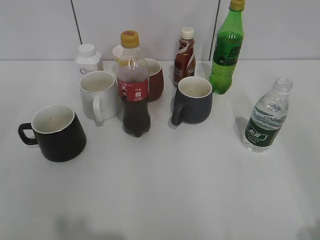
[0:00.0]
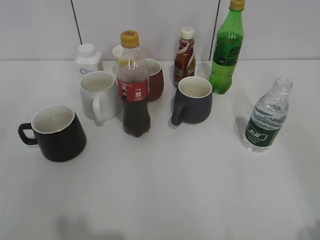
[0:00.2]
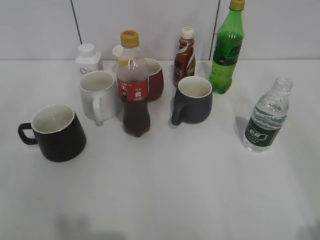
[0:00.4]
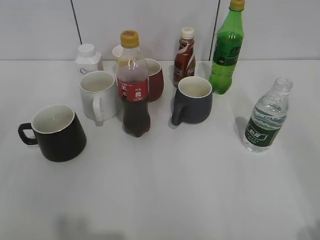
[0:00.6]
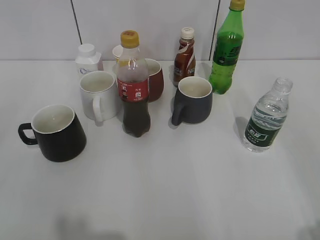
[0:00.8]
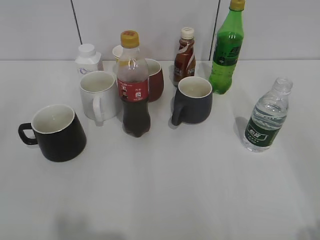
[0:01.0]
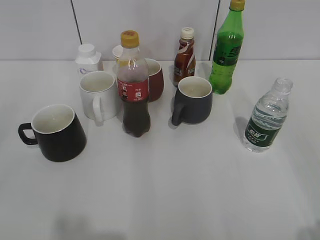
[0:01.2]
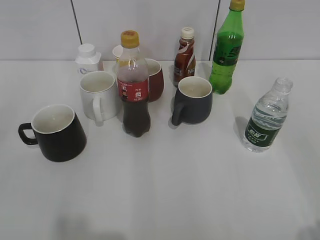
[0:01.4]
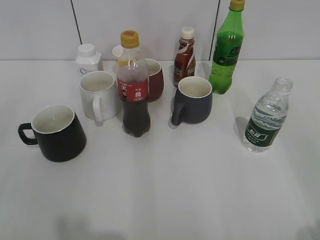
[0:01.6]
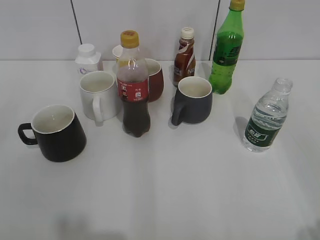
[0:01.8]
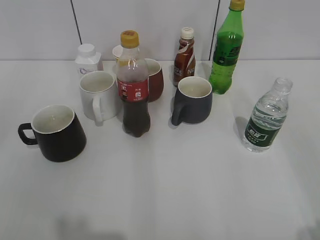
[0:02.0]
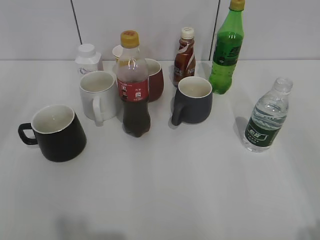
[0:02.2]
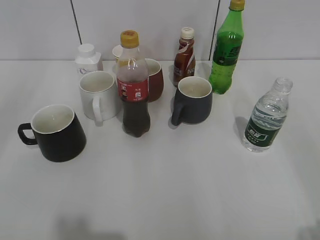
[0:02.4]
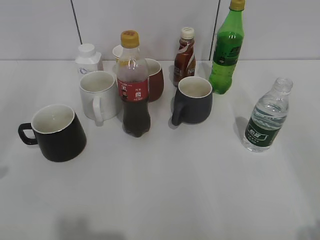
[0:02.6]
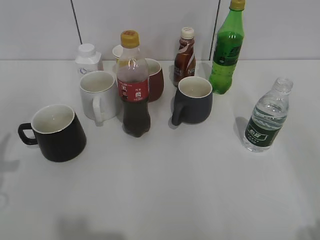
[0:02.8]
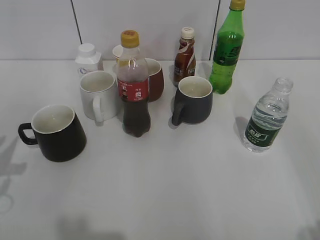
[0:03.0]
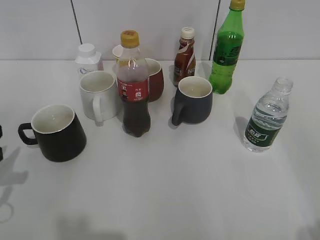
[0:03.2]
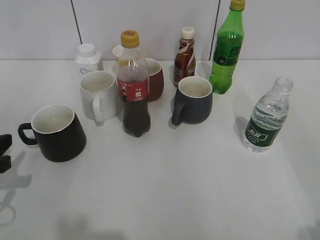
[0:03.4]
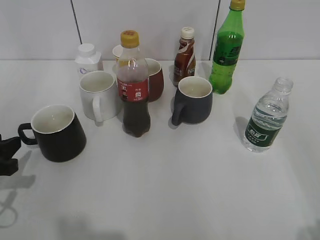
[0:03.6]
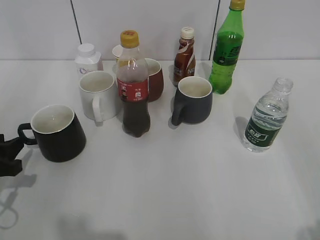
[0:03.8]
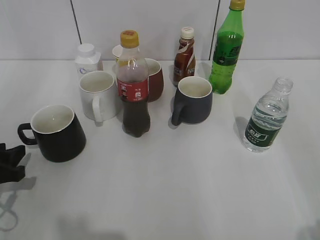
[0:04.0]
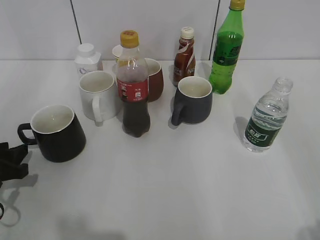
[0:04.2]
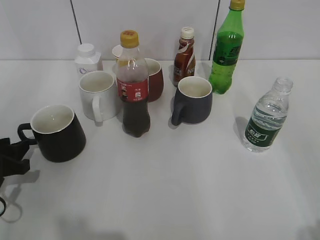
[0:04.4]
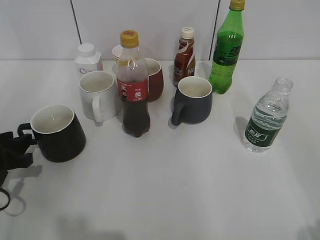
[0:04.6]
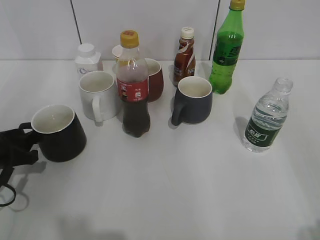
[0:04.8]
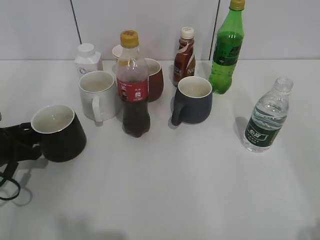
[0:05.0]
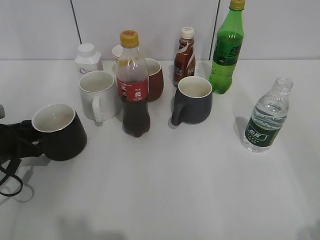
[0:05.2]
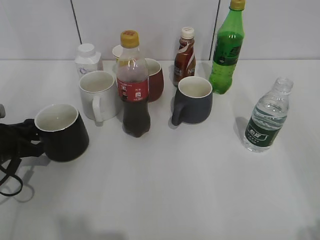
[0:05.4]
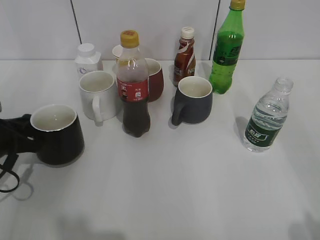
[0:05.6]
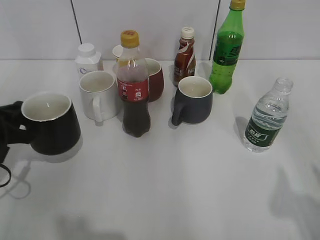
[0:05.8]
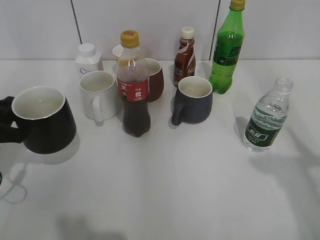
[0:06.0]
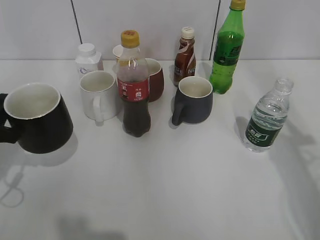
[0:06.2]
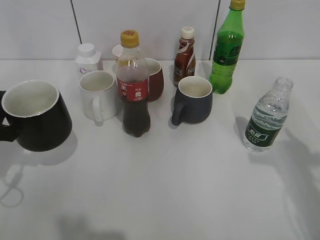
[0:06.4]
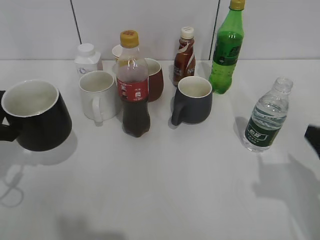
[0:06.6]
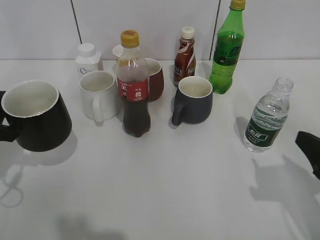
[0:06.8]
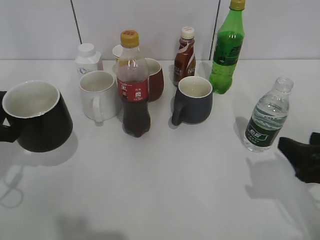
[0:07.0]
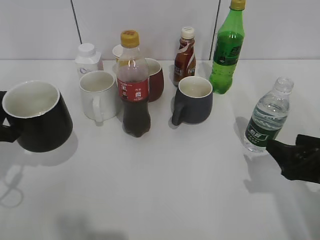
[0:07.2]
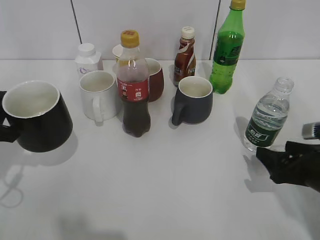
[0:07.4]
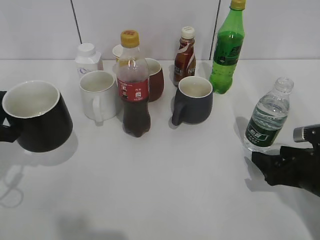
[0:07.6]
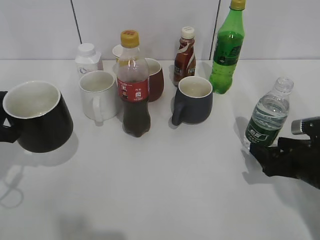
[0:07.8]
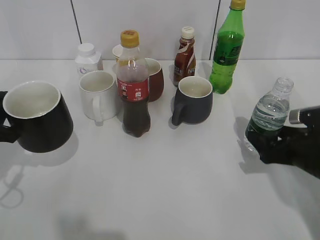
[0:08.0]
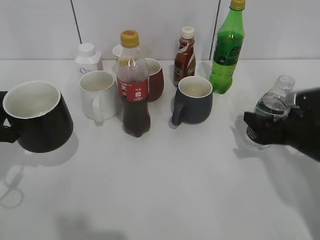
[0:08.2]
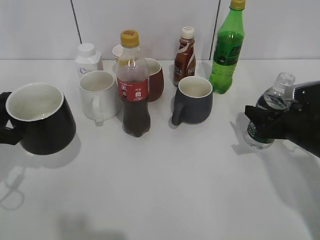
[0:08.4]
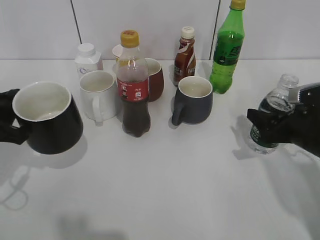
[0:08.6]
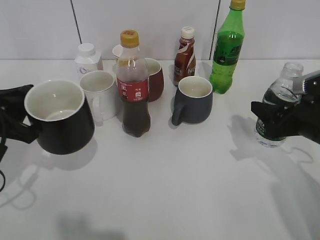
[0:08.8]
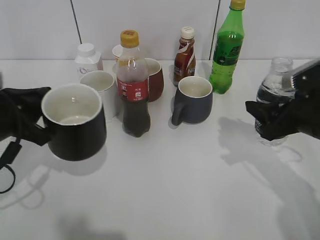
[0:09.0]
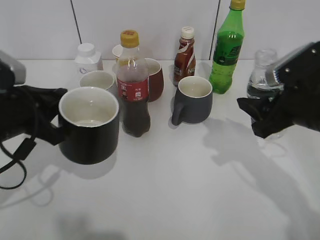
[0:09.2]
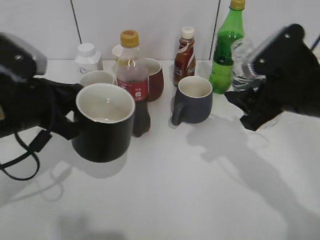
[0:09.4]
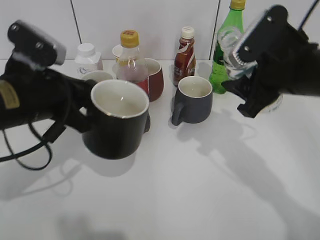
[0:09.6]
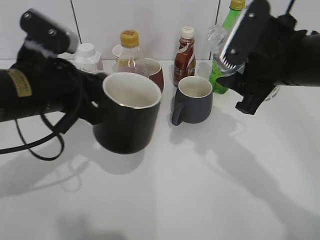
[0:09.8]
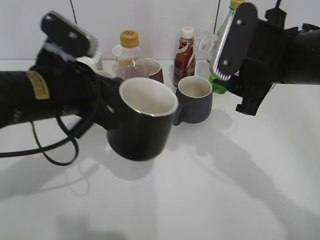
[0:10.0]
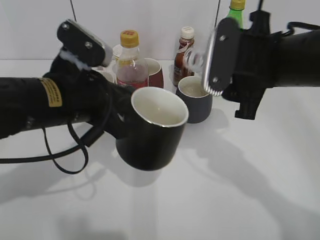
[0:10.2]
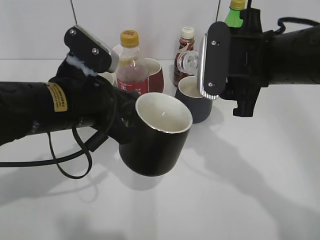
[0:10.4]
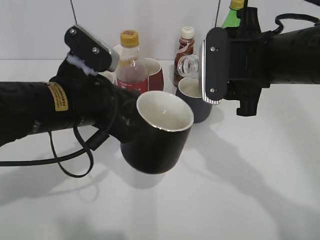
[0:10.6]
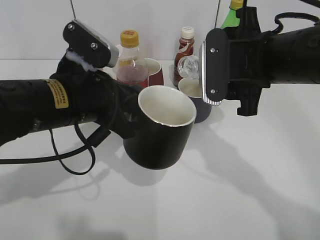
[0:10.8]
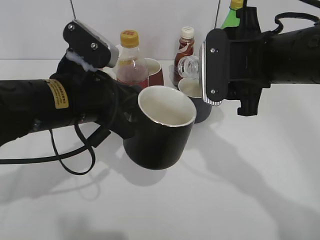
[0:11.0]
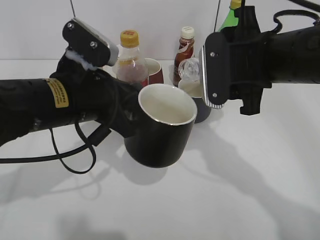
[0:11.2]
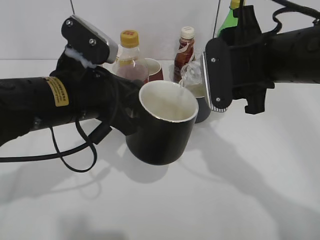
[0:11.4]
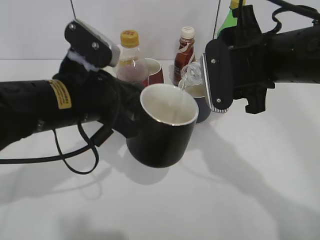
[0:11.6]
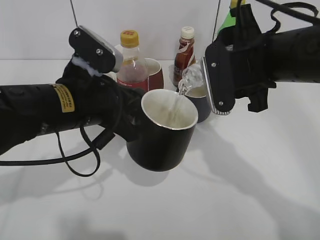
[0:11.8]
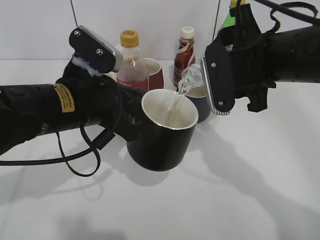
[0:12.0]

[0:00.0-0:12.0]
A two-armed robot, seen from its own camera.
Step, 2.0 to 5.2 s: Grasp the black cup with left gripper.
Step, 5.6 to 6.4 s: Lift the black cup with left gripper.
Step, 6.6 to 8.4 s: Grasp the bottle with water with right gripper.
3.0 to 4.4 s: The left gripper heads downward, covering roughly 10 cm.
4.4 to 6.0 s: The left gripper shifts some 5 cm upward, and closes; the right gripper goes approximately 15 cm forward and upward.
6.0 to 7.6 s: The right gripper travels downward by some 30 cm, and opens its fingers.
7.6 to 9.0 s: The right gripper heads upward, covering some 10 cm, and closes its fingers, while the left gripper moves approximately 5 cm.
9.0 to 10.4 s: The left gripper shifts approximately 10 cm to the right. Meanwhile the right gripper moves to the left and upward, roughly 15 cm.

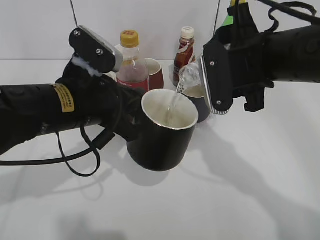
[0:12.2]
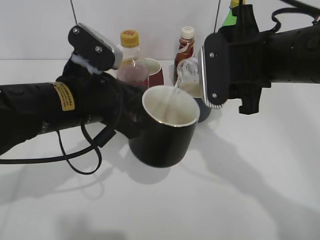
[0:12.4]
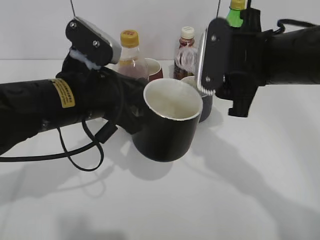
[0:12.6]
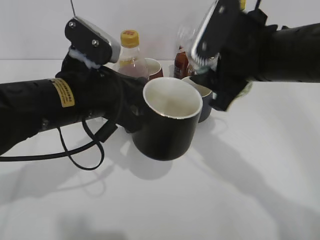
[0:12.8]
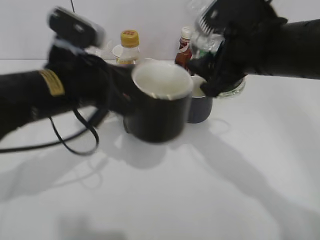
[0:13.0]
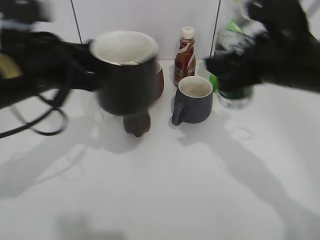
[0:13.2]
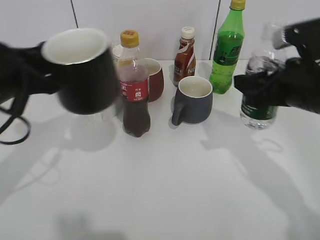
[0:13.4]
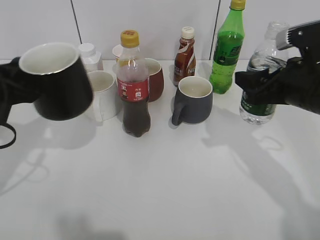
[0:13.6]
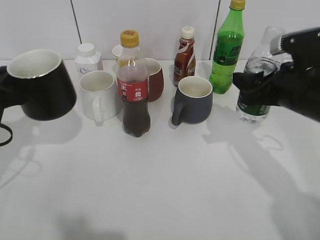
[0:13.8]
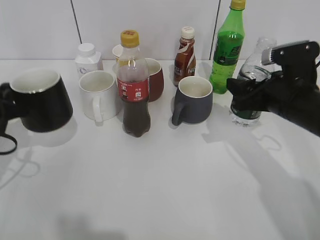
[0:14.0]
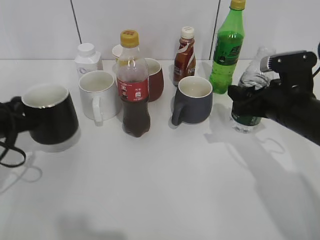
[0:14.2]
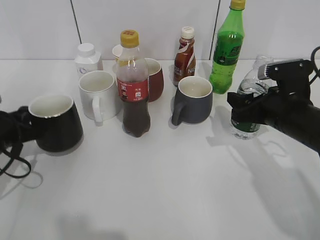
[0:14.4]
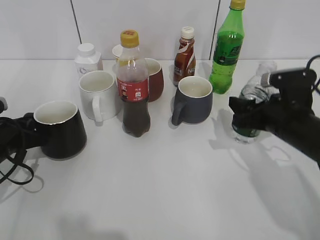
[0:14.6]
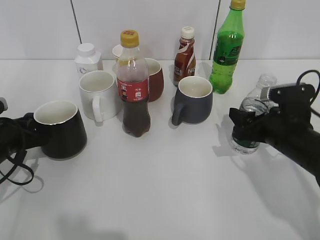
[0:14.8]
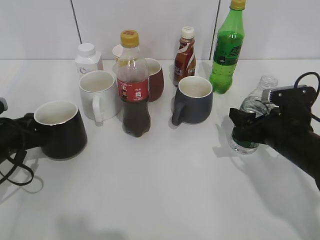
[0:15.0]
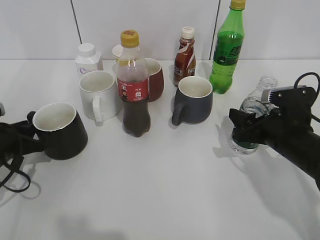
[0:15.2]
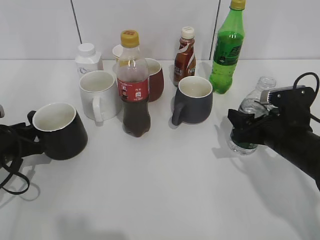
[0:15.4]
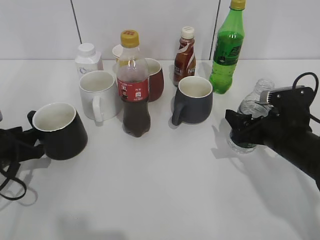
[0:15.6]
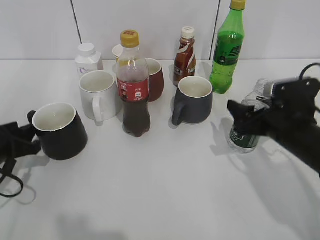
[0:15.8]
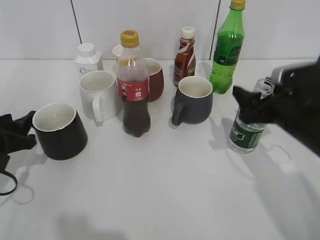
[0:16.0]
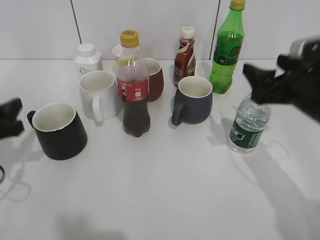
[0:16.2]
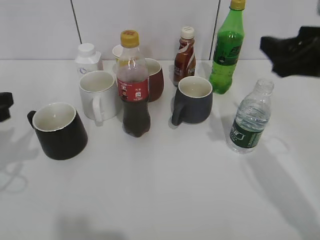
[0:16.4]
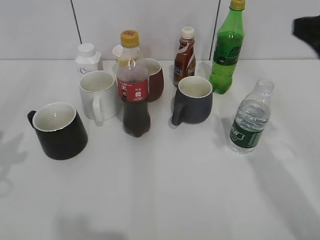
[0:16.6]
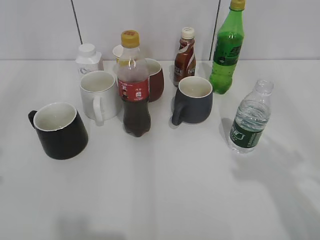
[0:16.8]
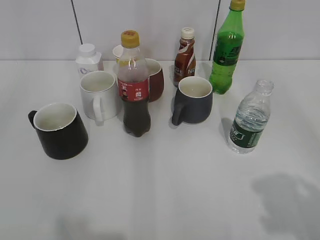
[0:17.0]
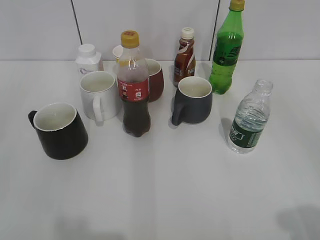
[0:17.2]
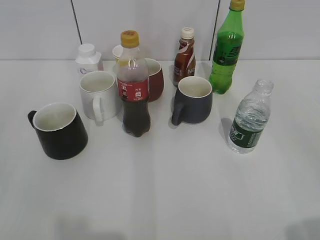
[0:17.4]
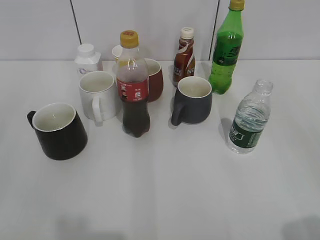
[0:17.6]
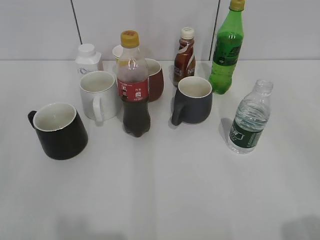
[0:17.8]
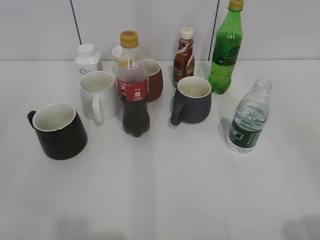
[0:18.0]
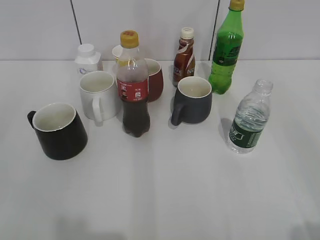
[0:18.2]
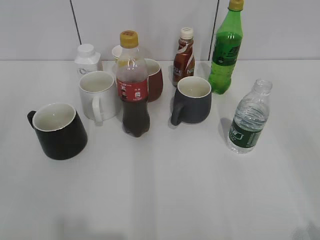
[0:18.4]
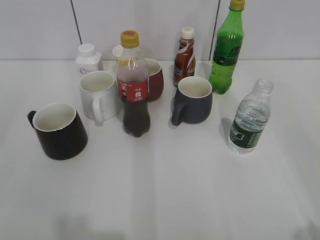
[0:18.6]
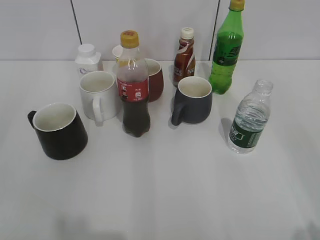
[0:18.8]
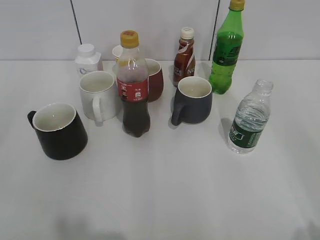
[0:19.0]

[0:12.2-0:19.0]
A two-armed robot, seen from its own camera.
Step, 13.0 to 15.8 s: Place the black cup on the table with left gripper.
12.2 to 13.6 s: The left gripper travels to the left by about 15 cm; the right gripper travels to the right by about 10 cm.
13.6 to 15.0 s: The two grippers go roughly 10 cm downward.
15.0 to 16.2 s: The right gripper moves upward, about 10 cm, and opens. Meanwhile the left gripper heads upward, covering roughly 5 cm, and opens up.
16.2 to 17.6 s: Both grippers move backward and upward, some 25 cm.

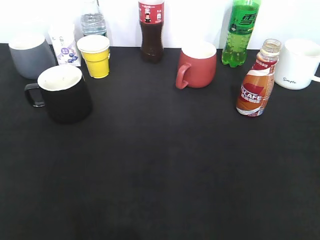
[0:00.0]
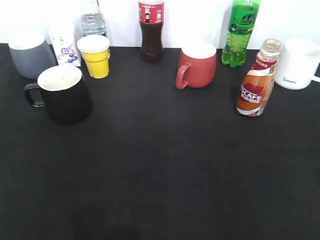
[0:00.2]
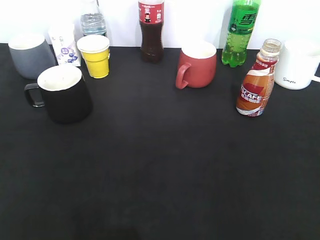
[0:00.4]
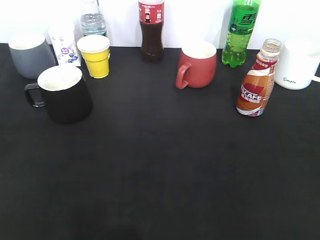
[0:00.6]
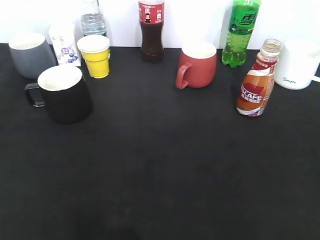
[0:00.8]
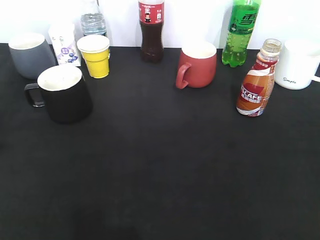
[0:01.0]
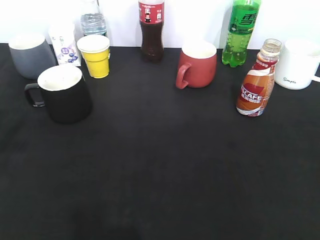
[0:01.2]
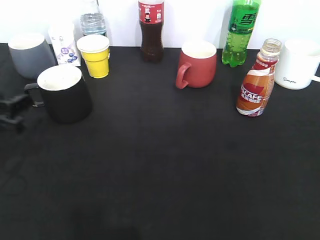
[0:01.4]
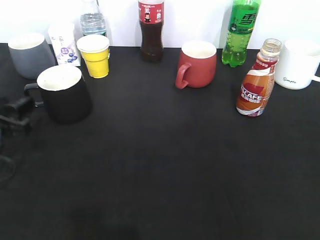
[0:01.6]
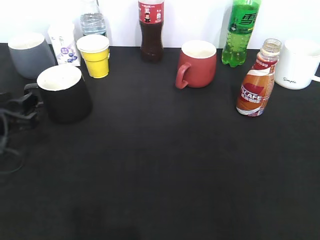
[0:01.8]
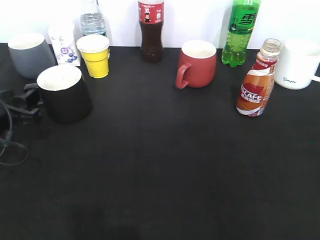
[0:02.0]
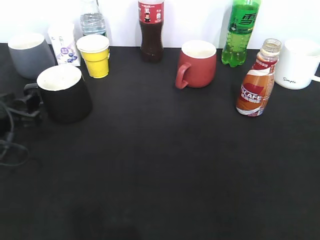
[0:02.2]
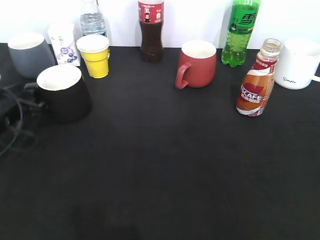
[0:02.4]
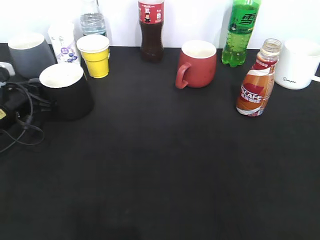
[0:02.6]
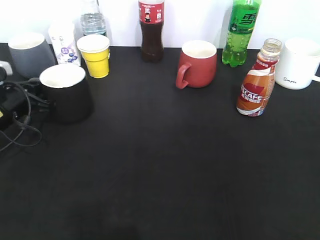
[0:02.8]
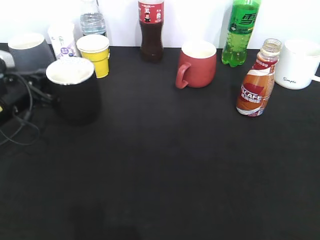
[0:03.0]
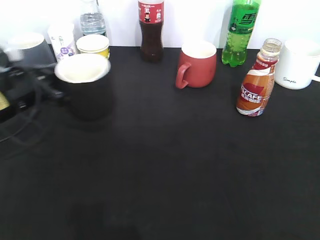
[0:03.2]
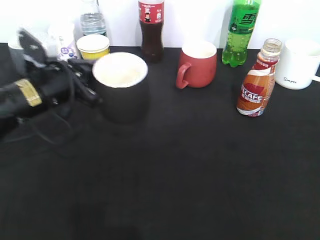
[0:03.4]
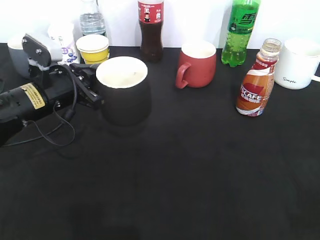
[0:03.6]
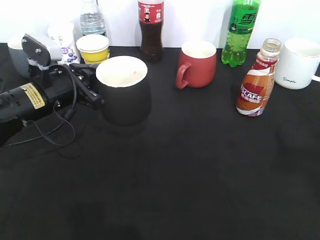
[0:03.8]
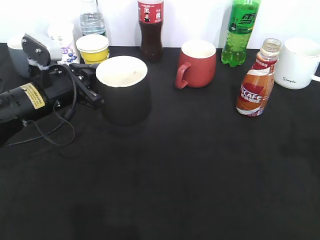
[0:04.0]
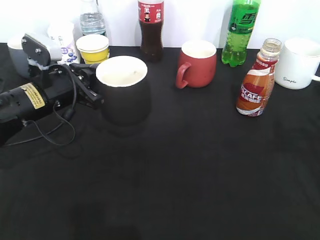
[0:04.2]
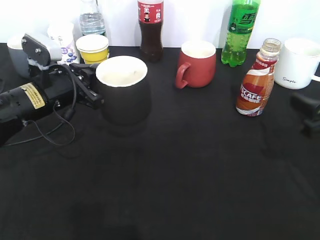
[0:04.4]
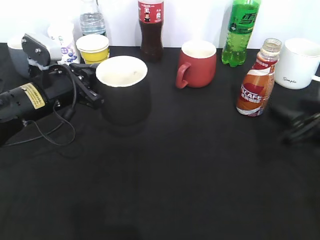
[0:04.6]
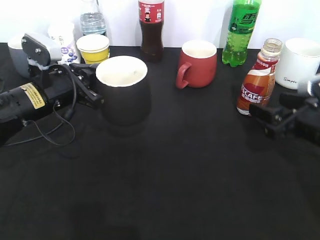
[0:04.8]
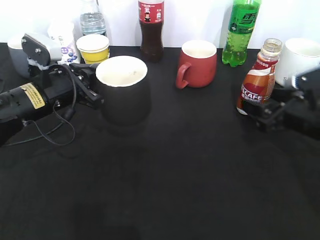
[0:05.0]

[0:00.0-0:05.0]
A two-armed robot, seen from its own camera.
Step, 0.6 to 2.8 s: Grasp the black cup with left gripper.
Step, 3.0 to 3.4 s: Lift the black cup with left gripper.
0.0 to 1.6 s: The left gripper is displaced forward and downward by about 30 cm, and opens its fingers.
1.6 to 3.4 s: The left gripper moves to the right and forward, roughly 15 cm, and closes up.
3.4 to 5.0 s: The right gripper moves forward and downward, roughly 35 cm, and opens its fingers.
